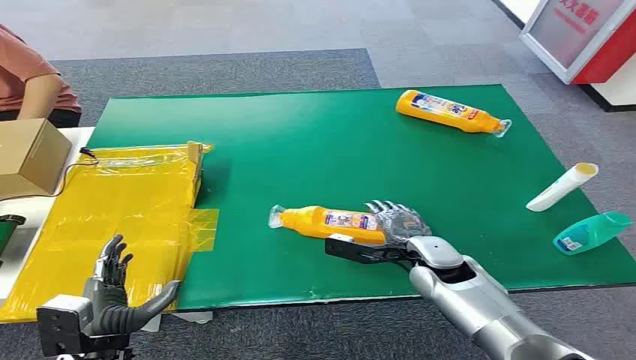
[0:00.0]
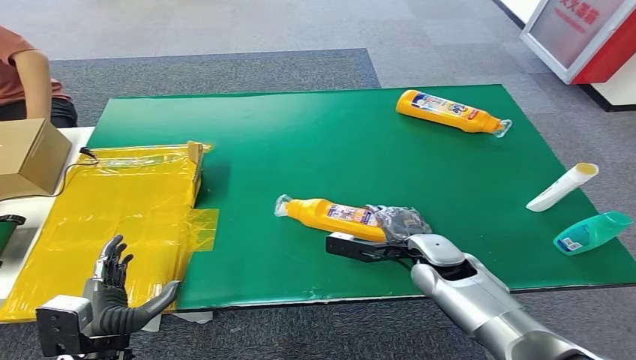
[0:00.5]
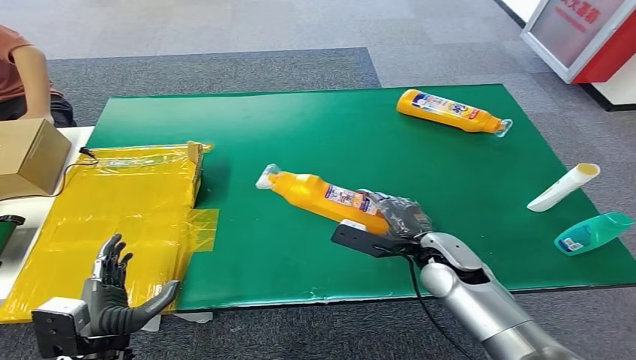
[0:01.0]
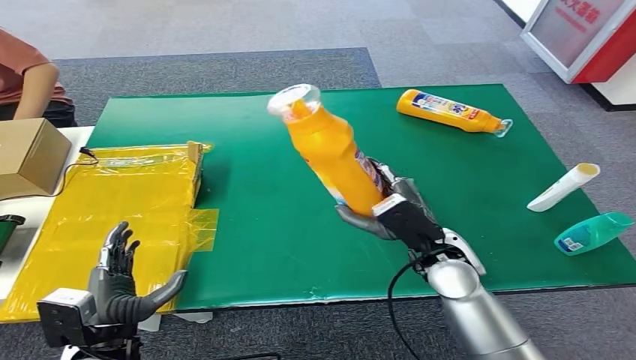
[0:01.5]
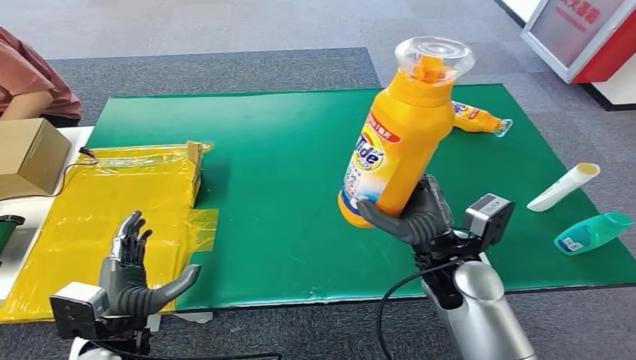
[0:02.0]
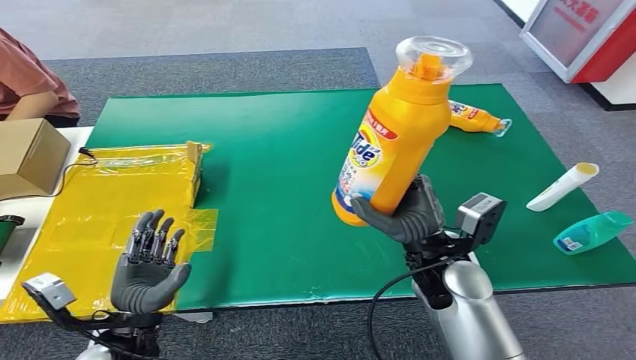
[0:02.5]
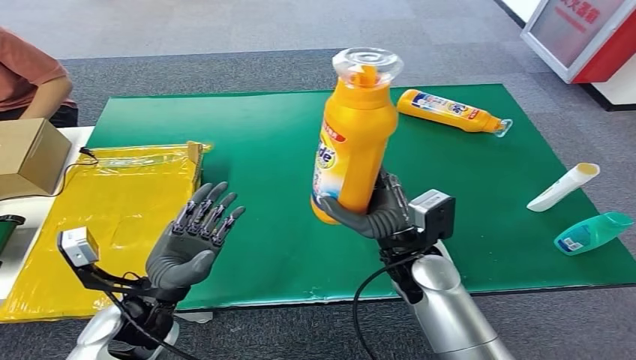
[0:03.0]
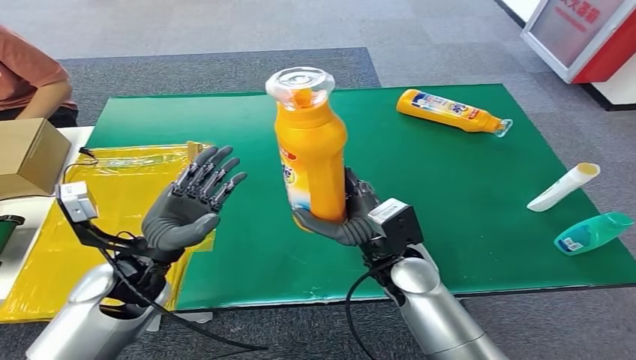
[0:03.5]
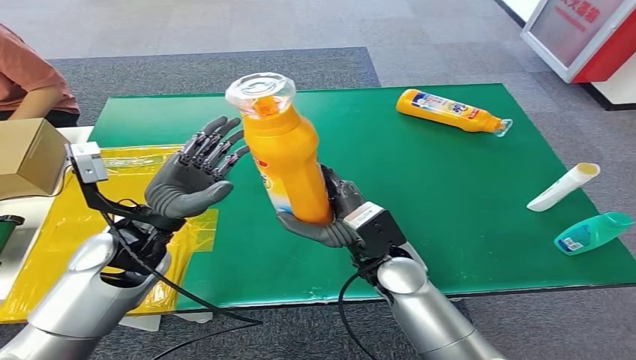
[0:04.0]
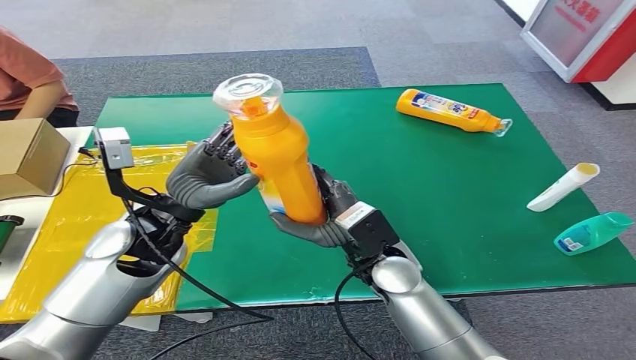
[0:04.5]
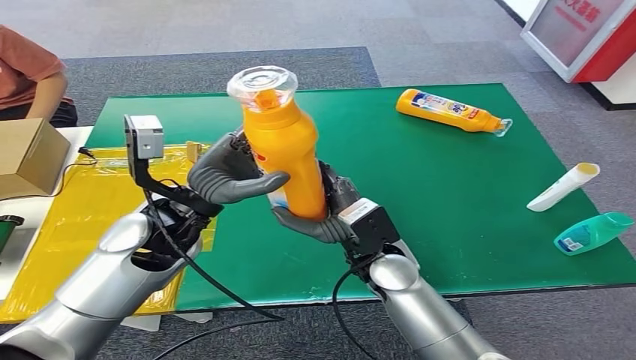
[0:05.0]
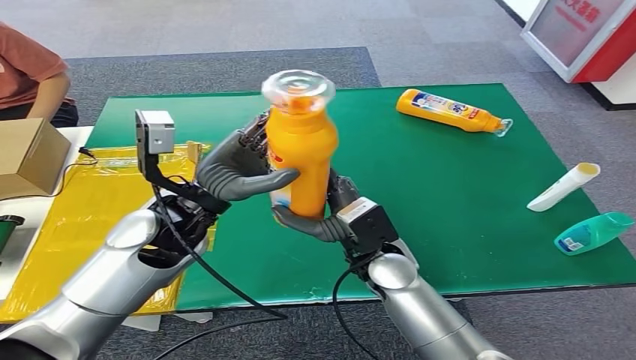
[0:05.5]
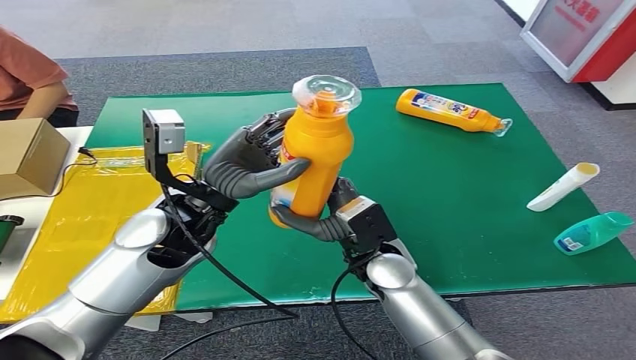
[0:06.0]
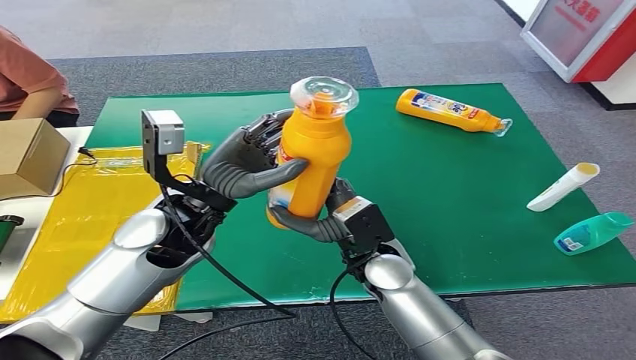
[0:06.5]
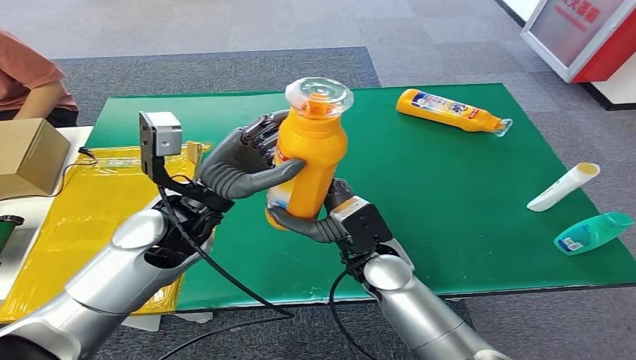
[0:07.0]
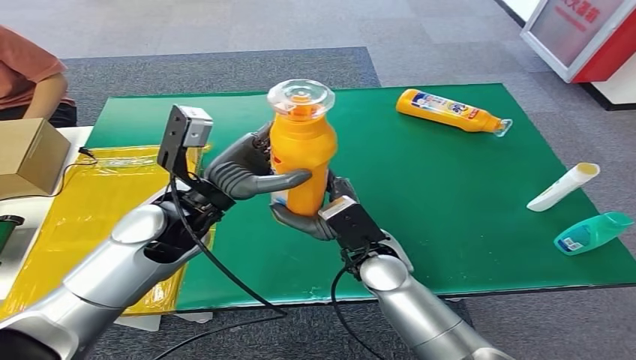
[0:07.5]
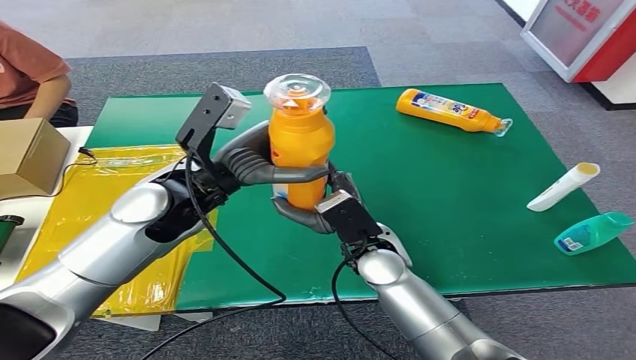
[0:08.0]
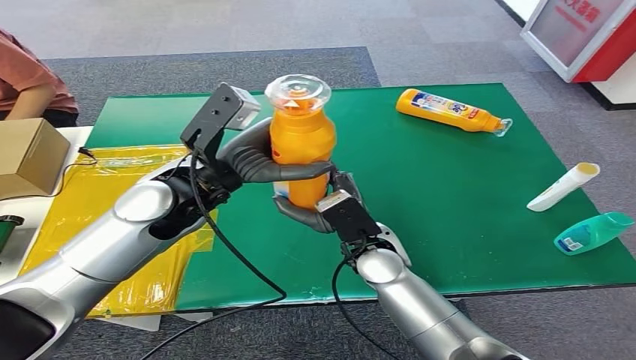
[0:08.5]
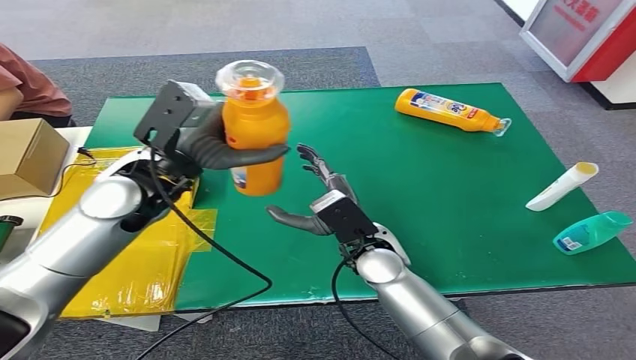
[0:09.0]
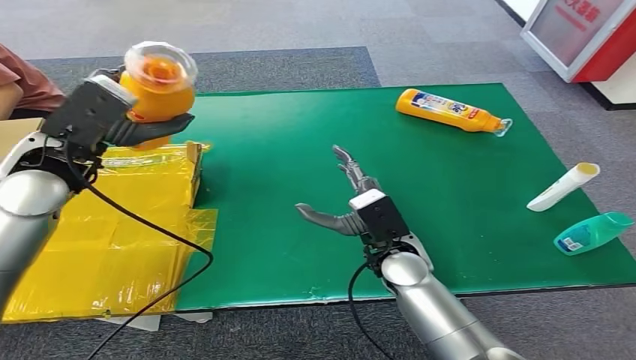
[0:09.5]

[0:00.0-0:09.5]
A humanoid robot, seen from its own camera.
Step, 0:00.0 to 0:01.0: Pick up the bottle from the table.
0:04.0 to 0:05.5: The left hand moves to the right, roughly 5 cm.
0:05.5 to 0:07.5: The hands move only a little.

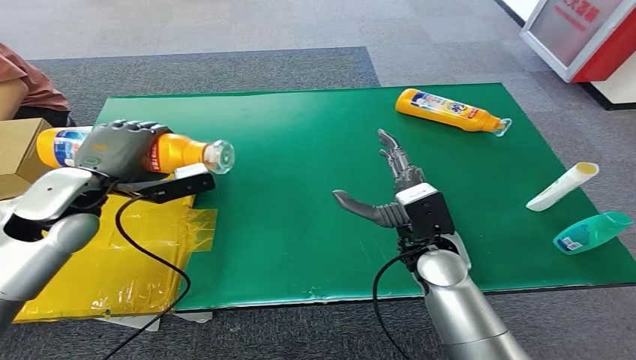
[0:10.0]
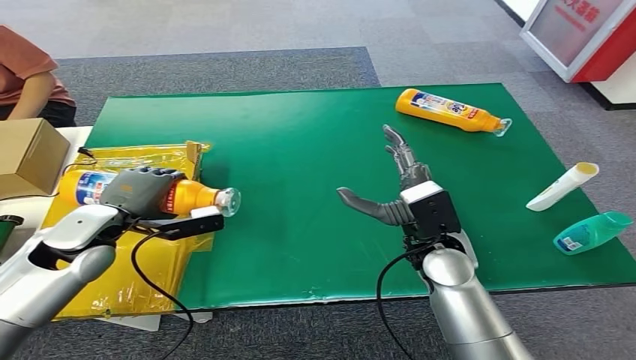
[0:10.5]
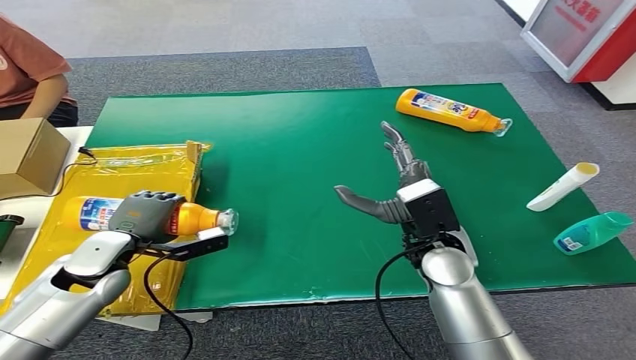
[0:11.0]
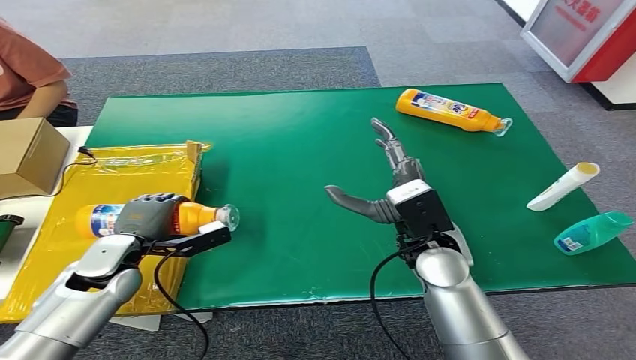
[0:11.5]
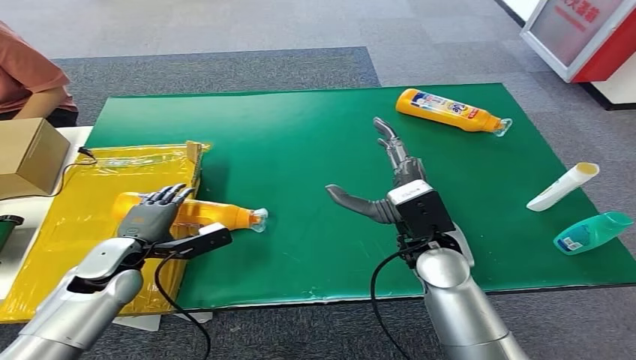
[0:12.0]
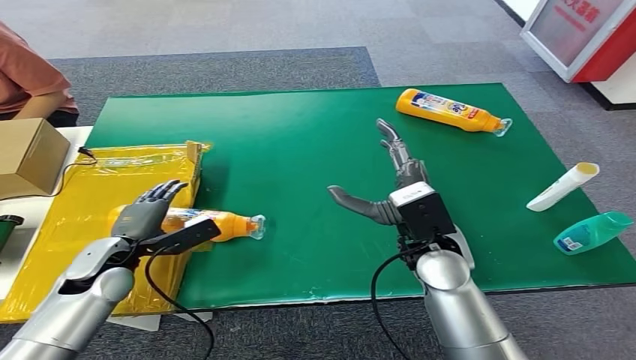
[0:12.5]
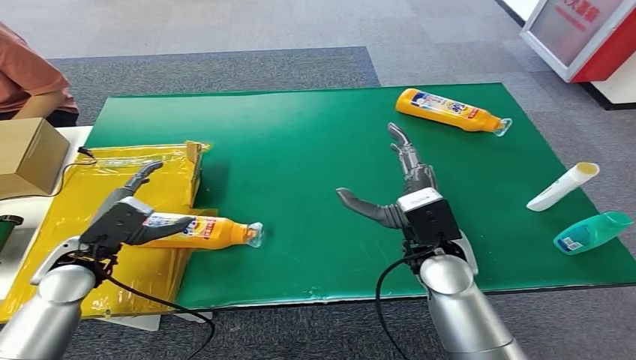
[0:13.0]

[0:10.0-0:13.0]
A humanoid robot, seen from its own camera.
Step, 0:10.0 to 0:13.0: Turn the bottle to the front side.
0:10.0 to 0:11.5: The left hand heads downward, covering roughly 15 cm.

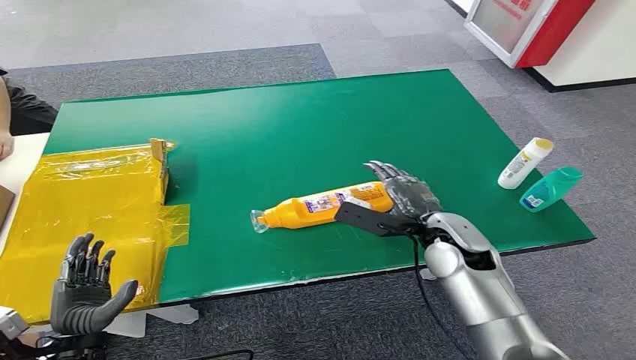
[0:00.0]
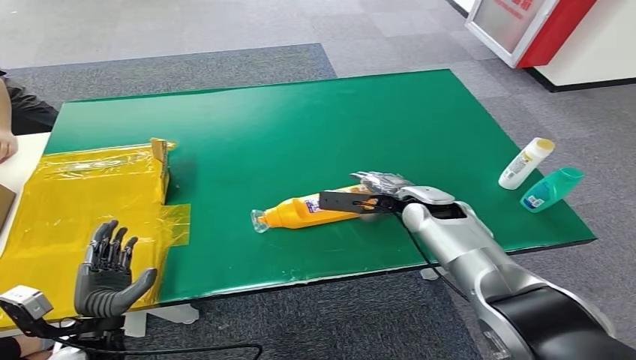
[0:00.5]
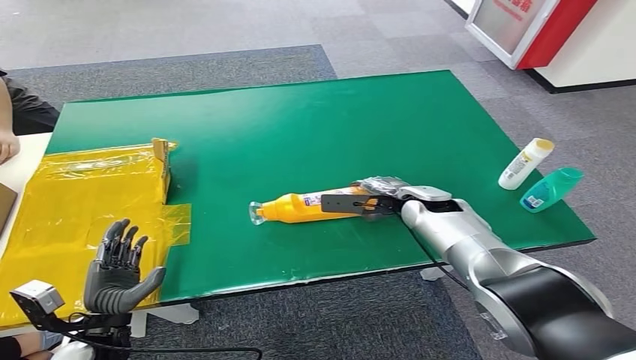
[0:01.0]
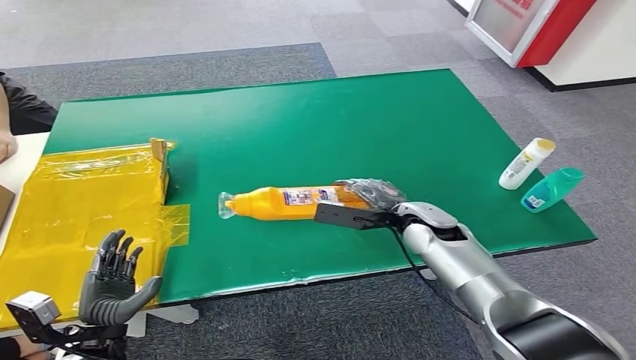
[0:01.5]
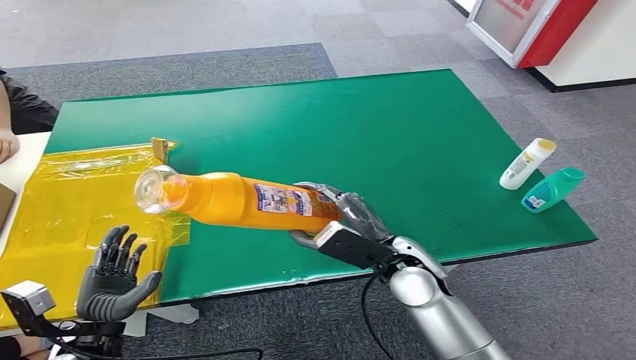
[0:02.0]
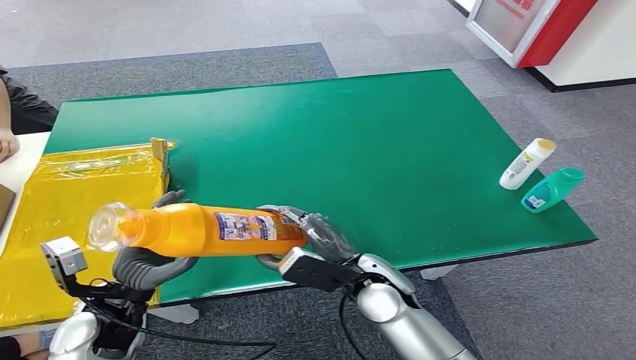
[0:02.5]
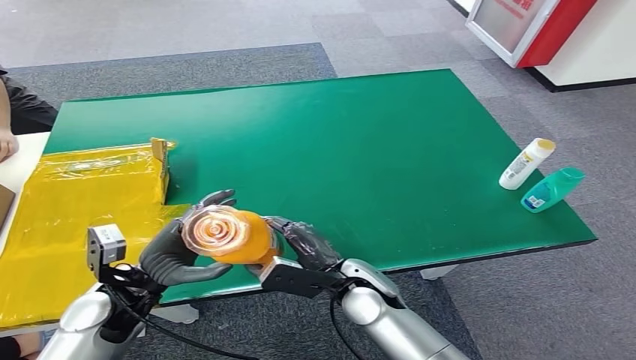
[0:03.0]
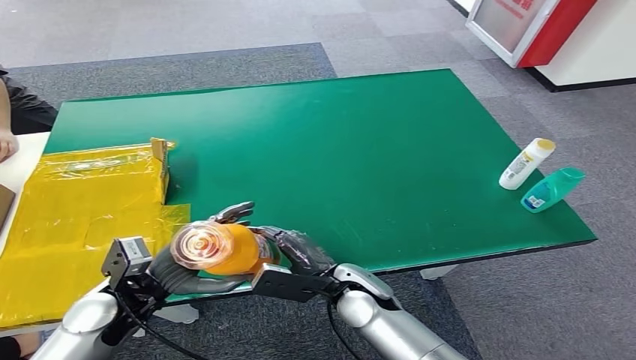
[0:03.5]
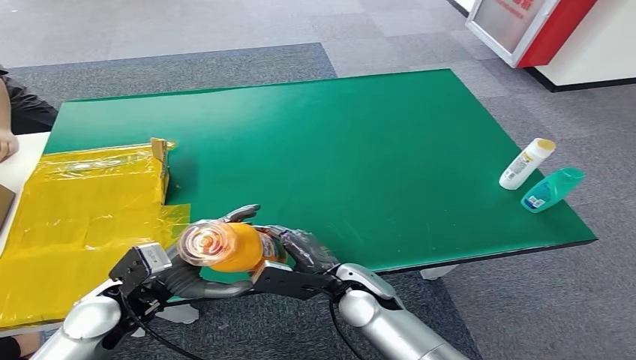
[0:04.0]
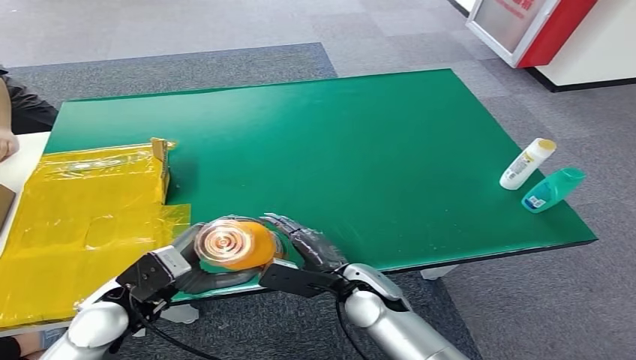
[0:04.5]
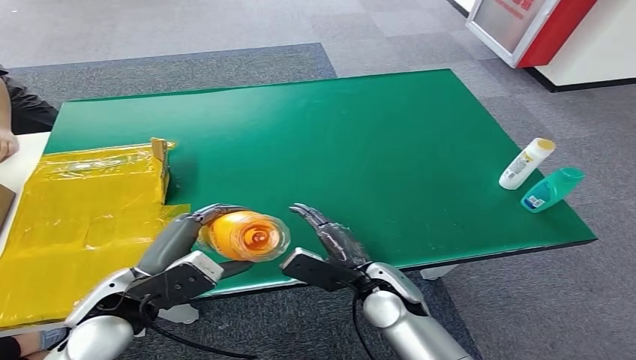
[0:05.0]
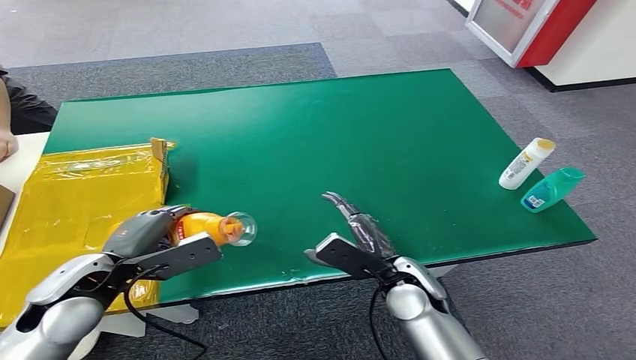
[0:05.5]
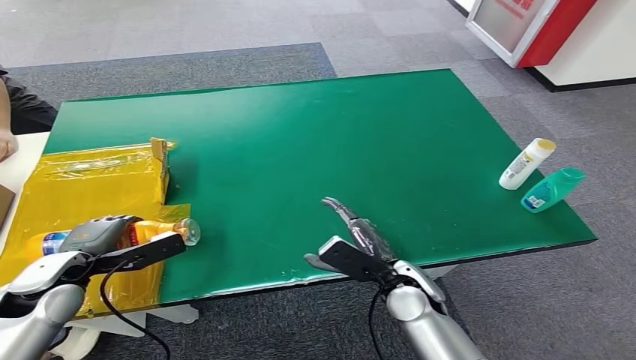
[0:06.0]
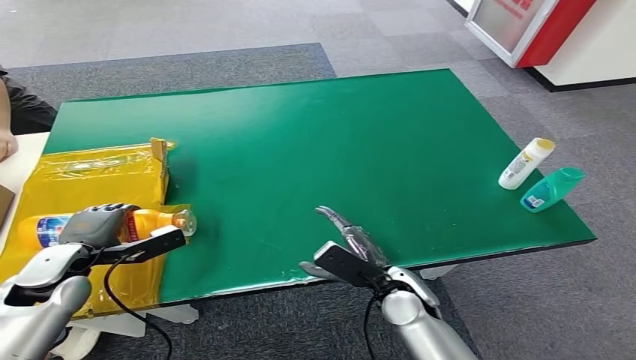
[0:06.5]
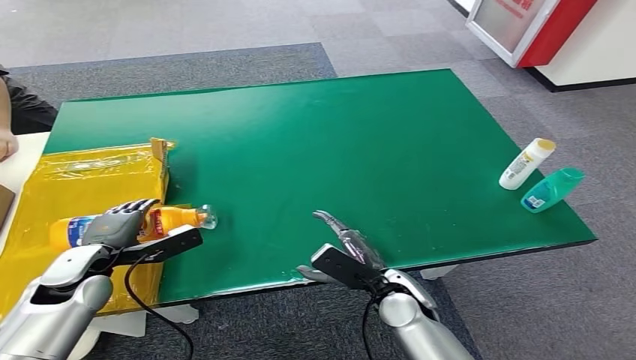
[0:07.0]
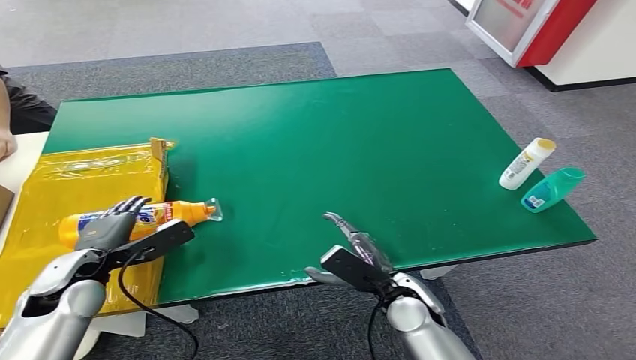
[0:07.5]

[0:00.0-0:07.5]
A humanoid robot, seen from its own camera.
Step, 0:00.0 to 0:01.5: Pick up the bottle from the table.
Step, 0:02.0 to 0:07.5: Turn the bottle to the front side.
0:02.0 to 0:04.0: The left hand travels upward, forward and to the right by some 10 cm. The right hand goes some 10 cm to the left and downward.
0:04.0 to 0:05.5: The left hand shifts by some 5 cm. The right hand heads to the right, covering about 5 cm.
0:05.5 to 0:07.5: The left hand goes about 5 cm downward.
